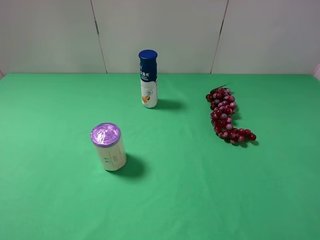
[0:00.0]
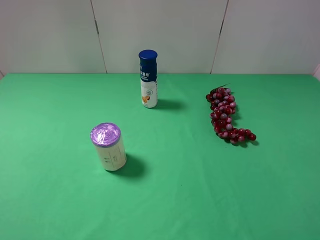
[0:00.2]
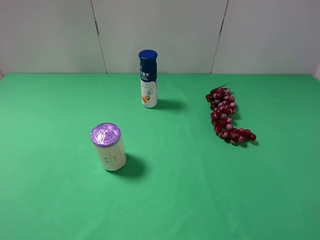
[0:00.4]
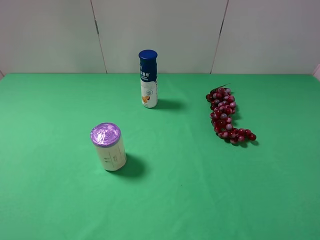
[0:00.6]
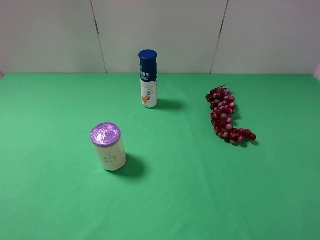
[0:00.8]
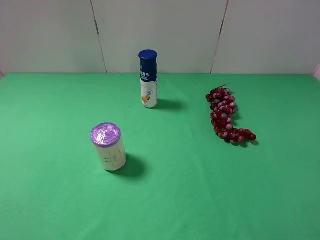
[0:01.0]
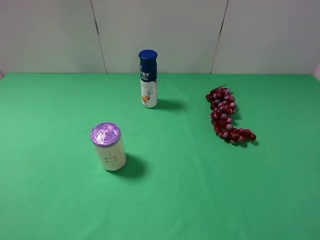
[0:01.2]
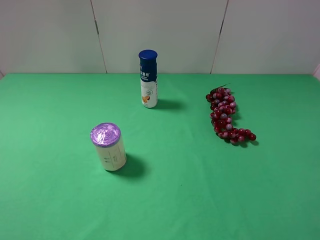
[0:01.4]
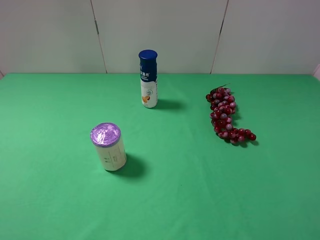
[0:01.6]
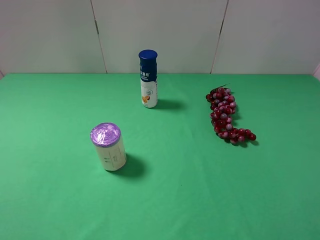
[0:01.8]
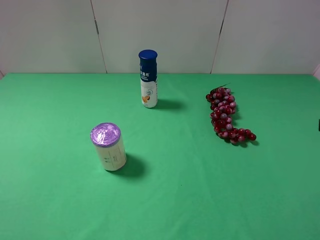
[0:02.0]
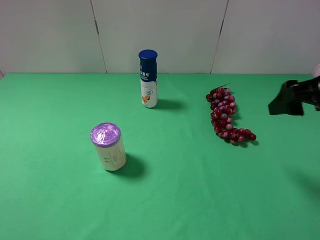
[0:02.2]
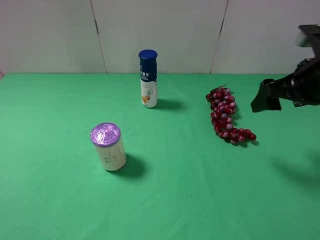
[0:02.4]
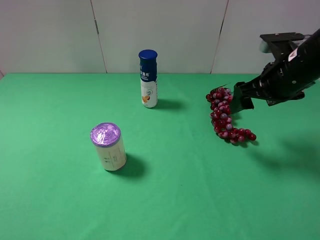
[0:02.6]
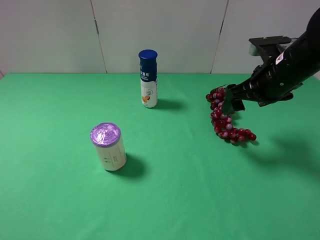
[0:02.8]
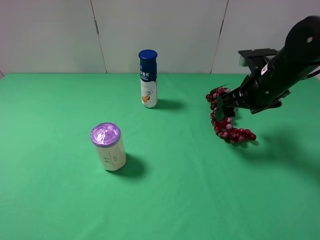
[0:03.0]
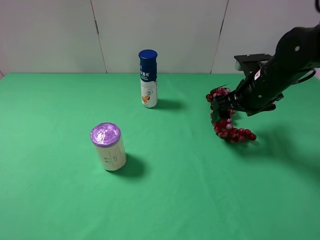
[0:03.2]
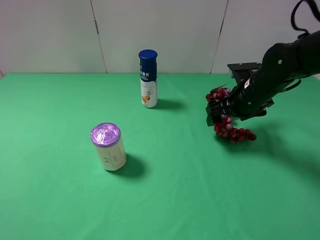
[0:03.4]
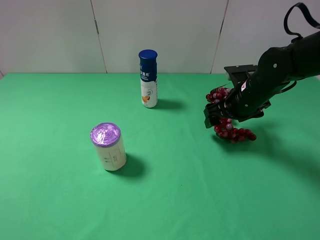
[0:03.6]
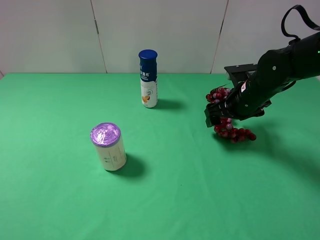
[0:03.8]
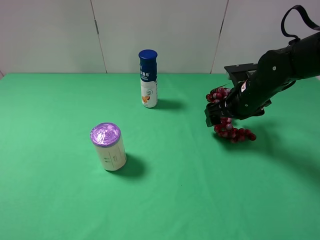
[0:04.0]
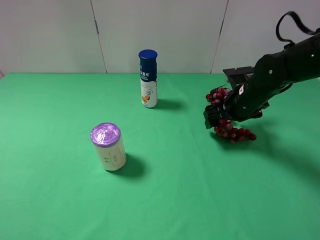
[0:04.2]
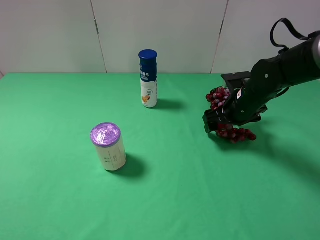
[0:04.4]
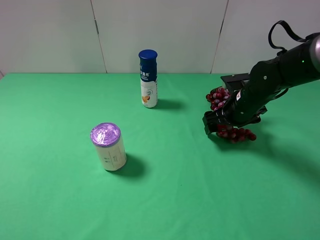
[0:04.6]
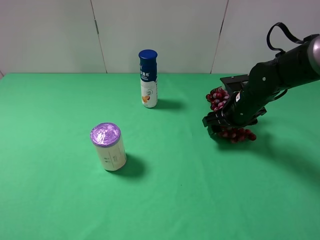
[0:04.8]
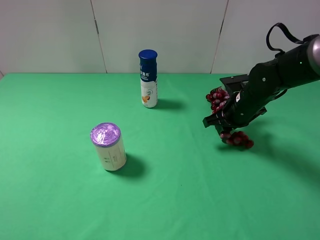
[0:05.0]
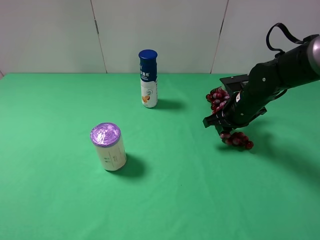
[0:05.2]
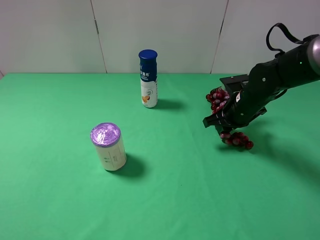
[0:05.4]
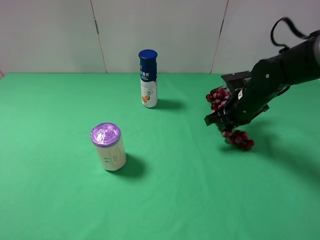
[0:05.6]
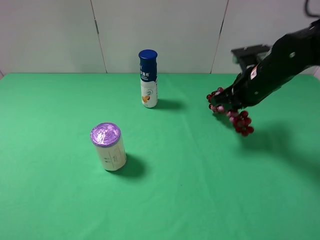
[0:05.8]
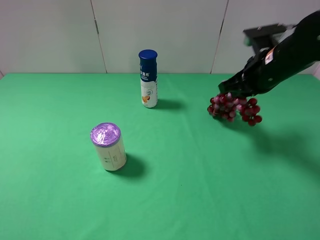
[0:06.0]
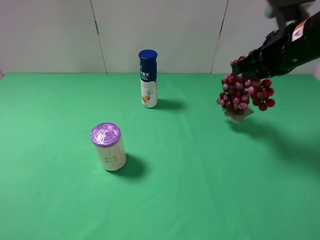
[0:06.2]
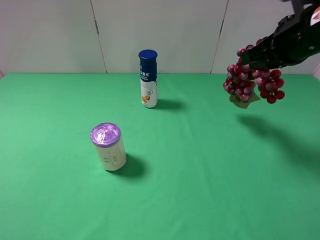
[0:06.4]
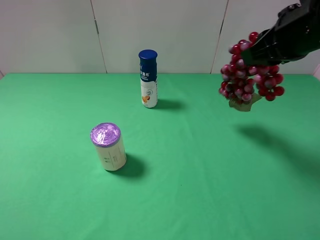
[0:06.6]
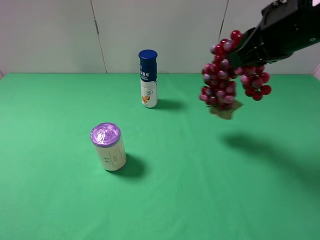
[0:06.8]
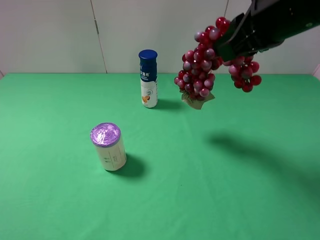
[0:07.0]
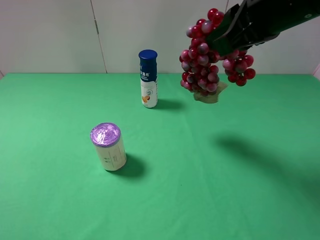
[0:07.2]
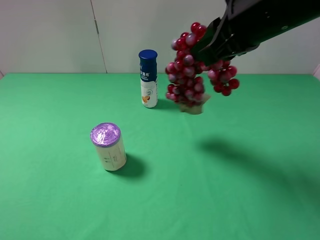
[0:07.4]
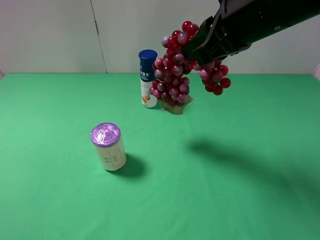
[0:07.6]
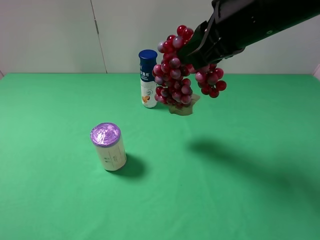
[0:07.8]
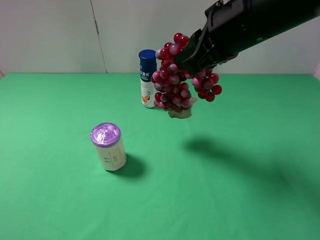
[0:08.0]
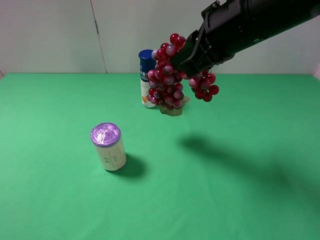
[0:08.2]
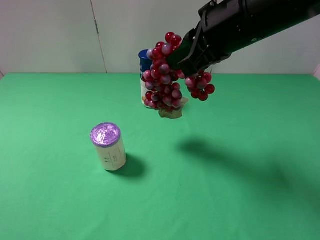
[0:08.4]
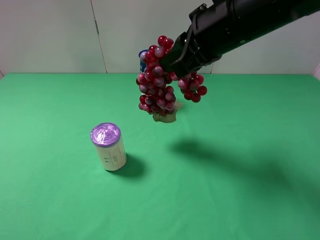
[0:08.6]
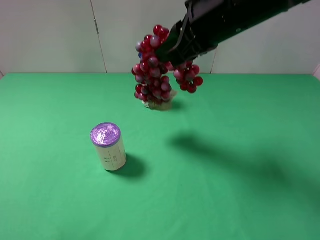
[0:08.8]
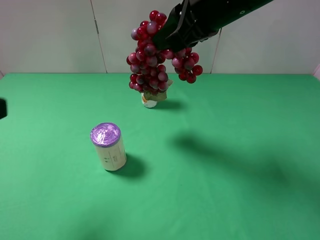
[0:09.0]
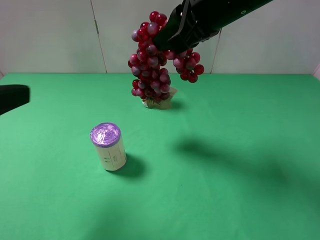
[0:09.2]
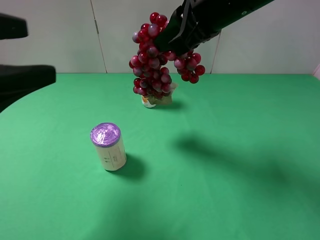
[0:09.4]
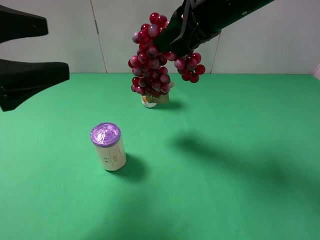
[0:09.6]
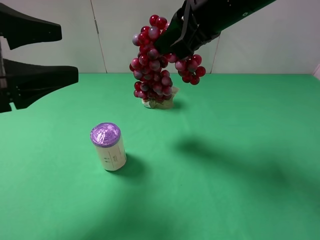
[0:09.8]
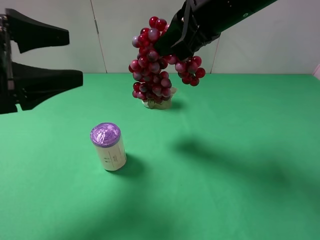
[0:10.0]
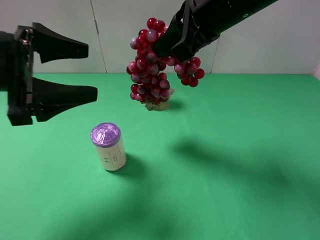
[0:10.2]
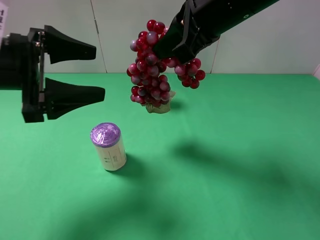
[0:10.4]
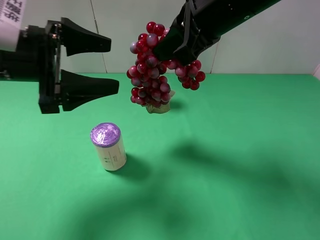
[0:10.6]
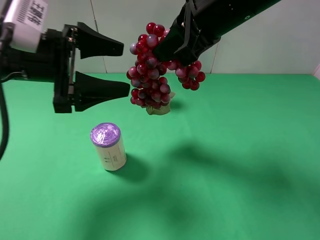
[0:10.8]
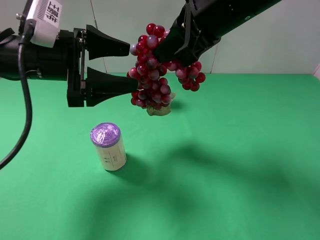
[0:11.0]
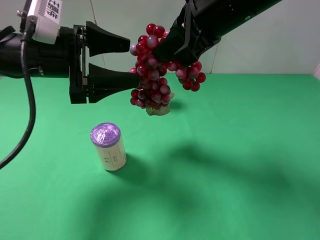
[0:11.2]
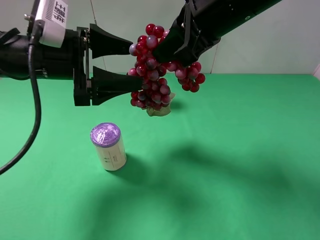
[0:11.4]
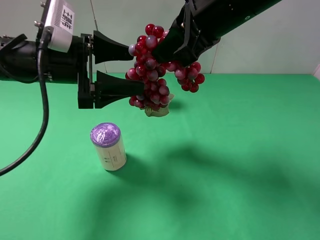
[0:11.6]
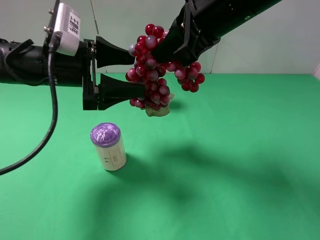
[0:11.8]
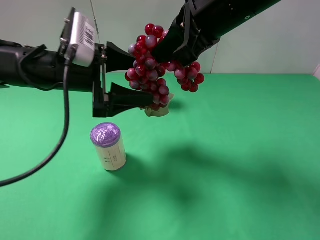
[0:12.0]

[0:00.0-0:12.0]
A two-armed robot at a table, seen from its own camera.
Task of the whole recording: use the right gripper to pick up the item and transfer it from the right gripper to the left gripper.
Step, 0:00.0 to 0:05.0: Use the right gripper to grab the grape on the right side of the table.
0:01.6 to 0:03.0: The right gripper heads forward, covering roughly 25 cm.
0:03.0 to 0:04.4: The right gripper shifts roughly 5 cm downward.
0:04.4 to 0:06.0: The right gripper moves upward, approximately 10 cm, and closes.
0:06.0 to 0:07.6: The right gripper heads upward, to the left and backward, covering about 15 cm.
0:07.6 to 0:09.0: The left gripper is displaced forward by roughly 10 cm.
0:09.0 to 0:10.4: The left gripper heads forward, downward and to the right, covering roughly 15 cm.
0:10.4 to 0:12.0: The left gripper heads to the right, covering roughly 5 cm.

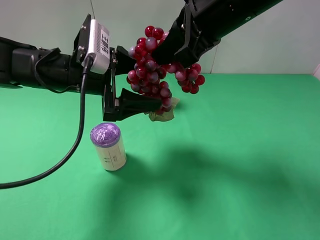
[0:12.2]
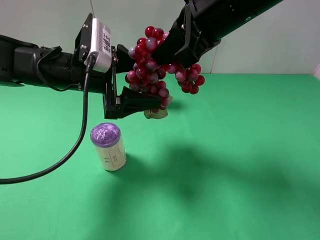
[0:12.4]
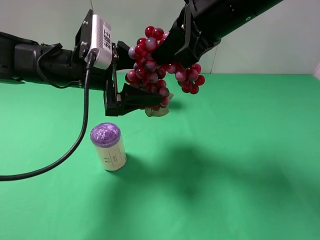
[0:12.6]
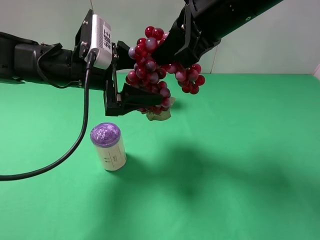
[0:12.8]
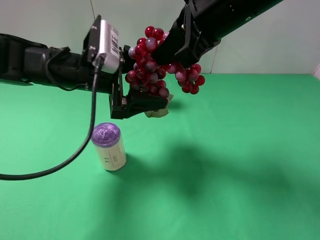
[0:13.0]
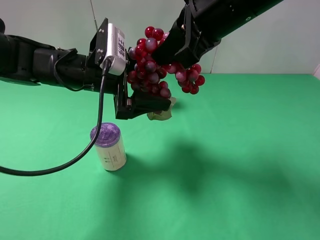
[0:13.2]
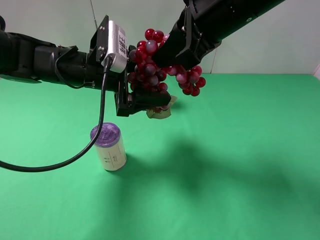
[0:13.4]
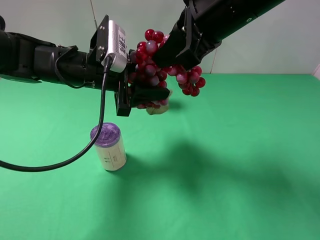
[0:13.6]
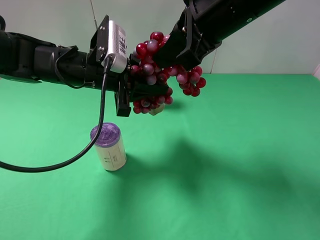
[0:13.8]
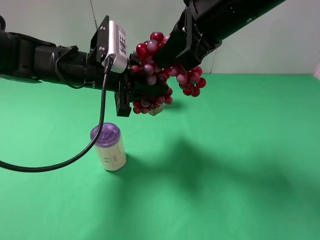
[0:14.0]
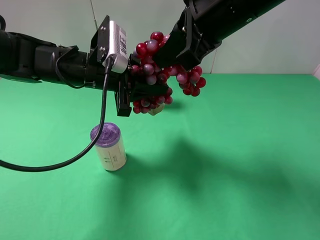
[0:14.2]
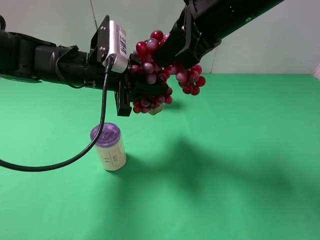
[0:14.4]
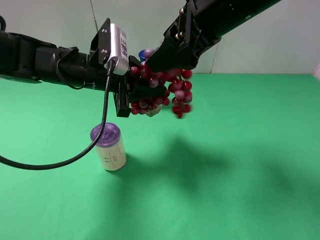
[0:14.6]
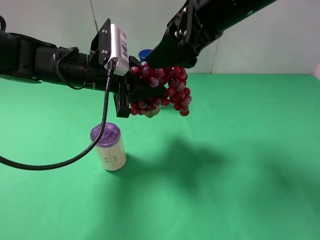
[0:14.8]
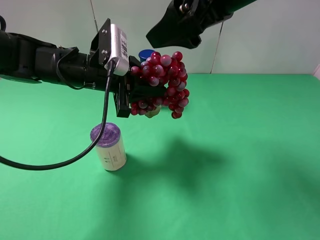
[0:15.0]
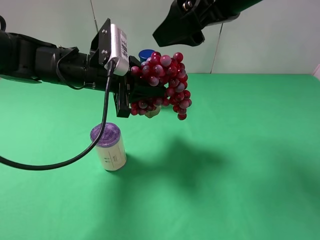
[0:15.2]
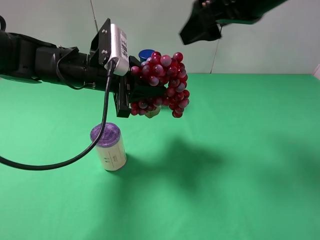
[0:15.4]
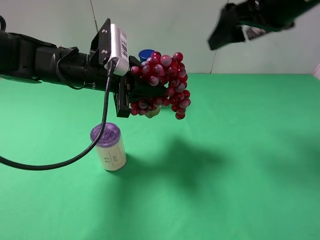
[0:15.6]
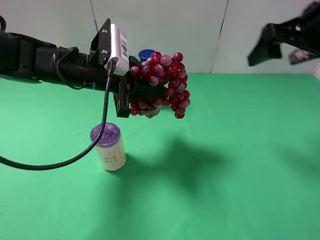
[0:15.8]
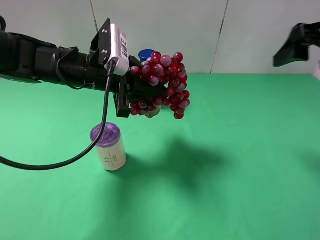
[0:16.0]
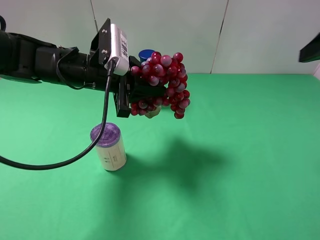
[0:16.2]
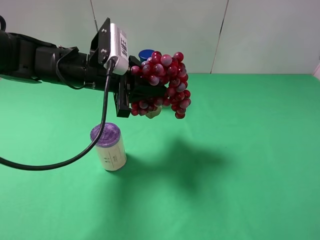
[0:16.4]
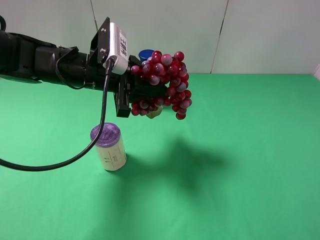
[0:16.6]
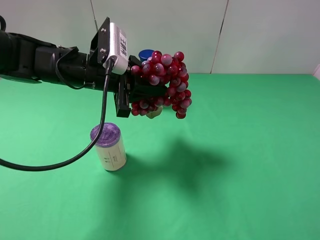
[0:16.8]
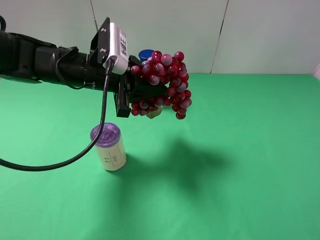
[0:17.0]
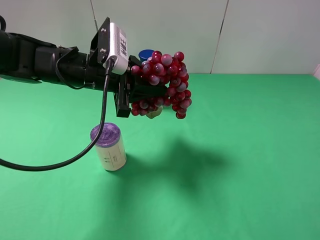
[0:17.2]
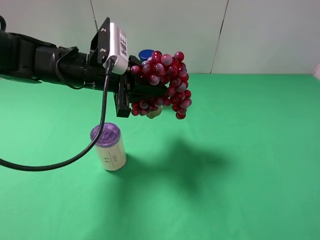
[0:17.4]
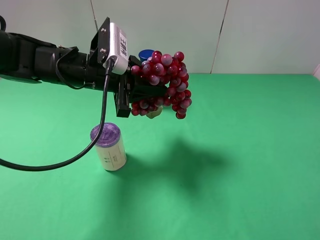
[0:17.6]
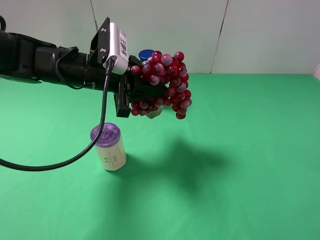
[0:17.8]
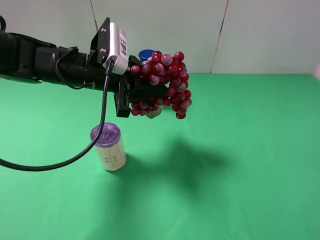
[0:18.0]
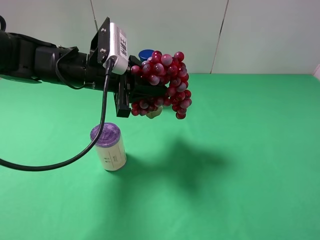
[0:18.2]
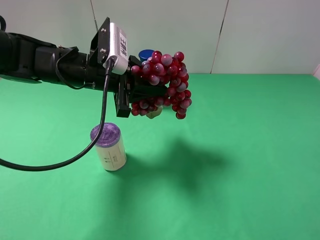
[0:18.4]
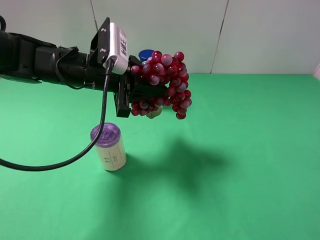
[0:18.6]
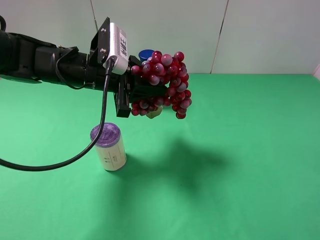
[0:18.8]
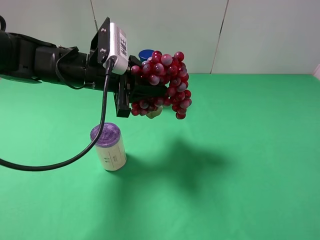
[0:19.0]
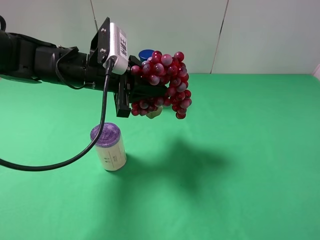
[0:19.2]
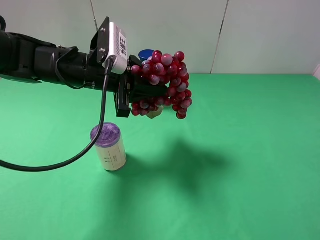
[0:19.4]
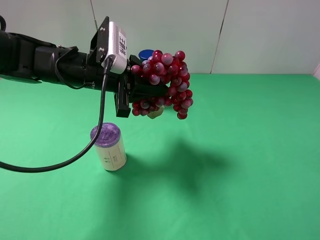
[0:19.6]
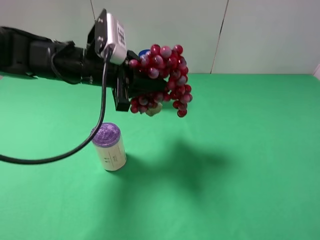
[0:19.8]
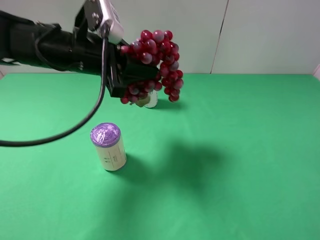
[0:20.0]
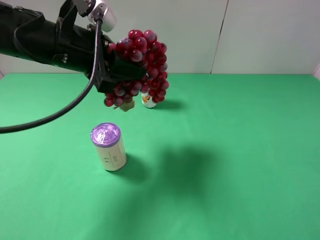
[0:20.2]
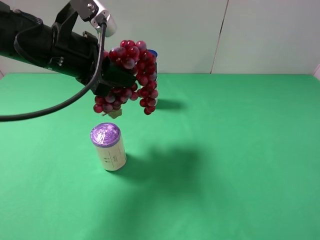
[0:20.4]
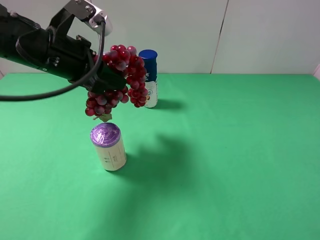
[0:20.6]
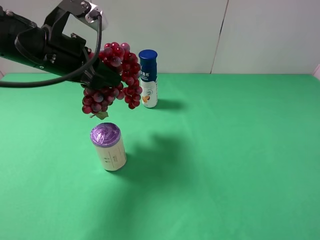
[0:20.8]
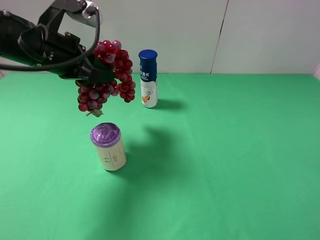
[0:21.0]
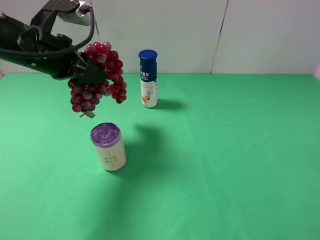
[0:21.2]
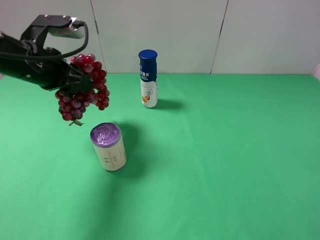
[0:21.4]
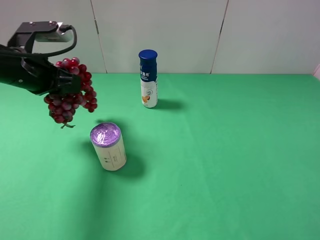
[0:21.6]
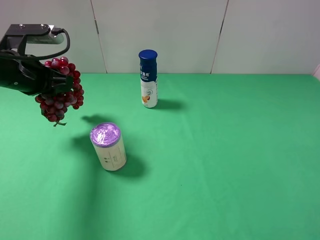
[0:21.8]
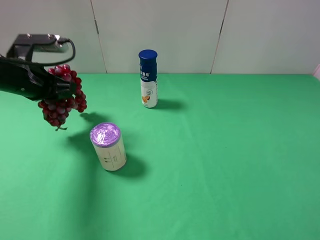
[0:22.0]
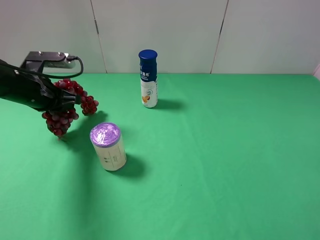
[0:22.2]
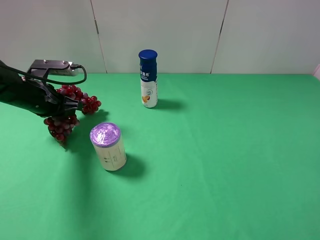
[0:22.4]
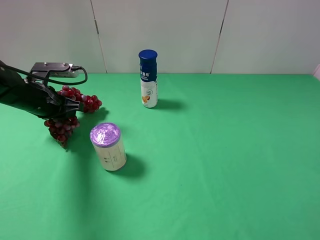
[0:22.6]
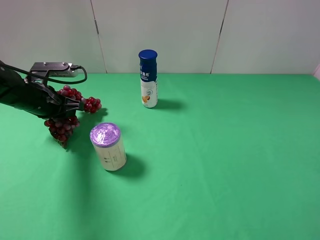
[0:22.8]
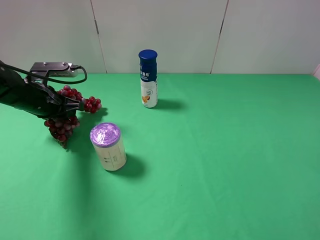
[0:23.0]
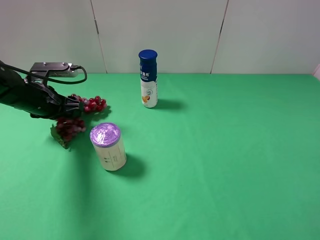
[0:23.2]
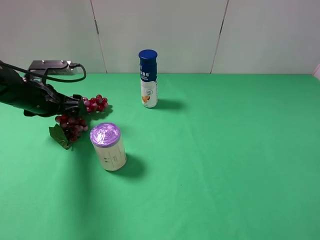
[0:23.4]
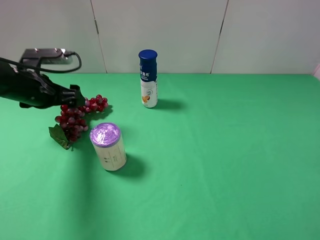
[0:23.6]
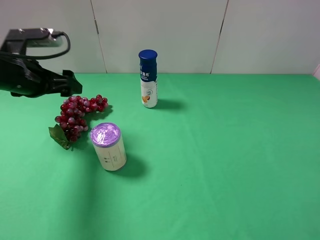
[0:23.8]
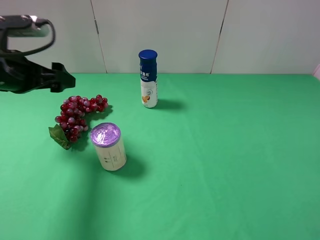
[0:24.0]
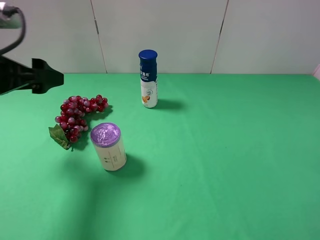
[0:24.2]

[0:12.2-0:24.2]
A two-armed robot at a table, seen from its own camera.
Task of the whole recording: use the right gripper to pick up the item and transfer it from the right gripper to the left gripper.
Step, 0:12.2 to 0:15.2: Pass the grape to the left gripper.
Step, 0:15.4 to 0:23.6: The left gripper places grape on the left side of the table.
0:12.2 to 0:13.8: The left gripper closes.
0:13.8 to 0:15.2: The right gripper opens.
0:15.2 to 0:16.6: The right gripper moves to the right and backward, some 25 cm.
0:18.2 to 0:19.8: The grippers stay close to where they were, moving slightly.
0:19.8 to 0:21.2: The left gripper travels to the left by approximately 10 cm.
0:21.2 to 0:22.6: The left gripper goes roughly 15 cm downward and to the left.
0:22.6 to 0:24.2: The left gripper heads upward and backward, covering roughly 15 cm, and opens.
